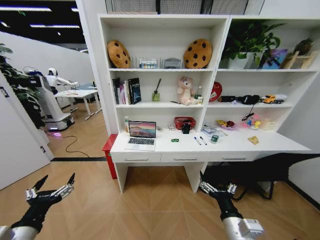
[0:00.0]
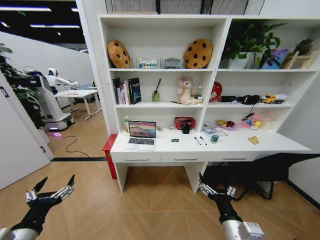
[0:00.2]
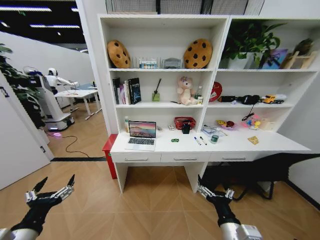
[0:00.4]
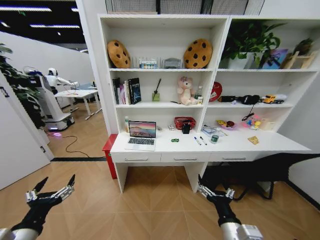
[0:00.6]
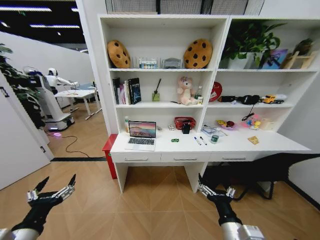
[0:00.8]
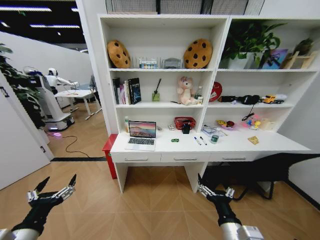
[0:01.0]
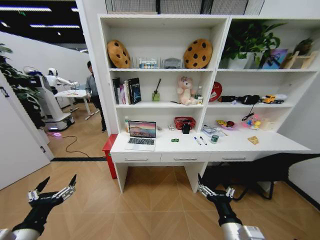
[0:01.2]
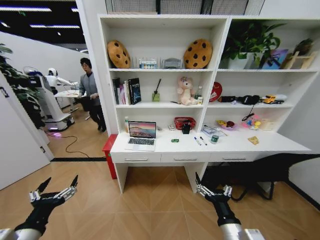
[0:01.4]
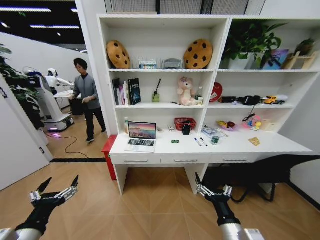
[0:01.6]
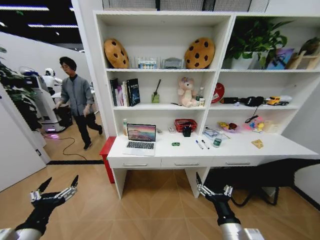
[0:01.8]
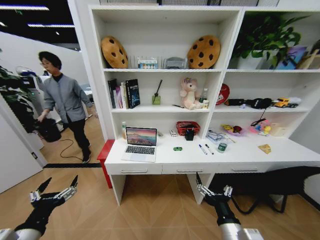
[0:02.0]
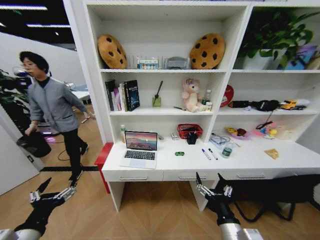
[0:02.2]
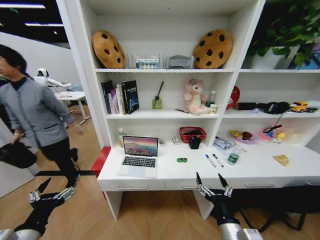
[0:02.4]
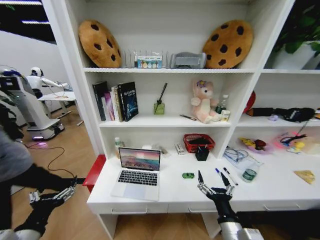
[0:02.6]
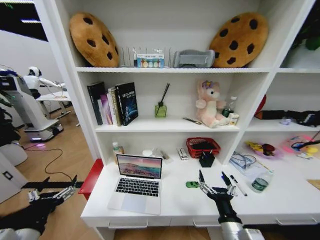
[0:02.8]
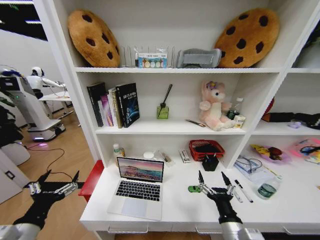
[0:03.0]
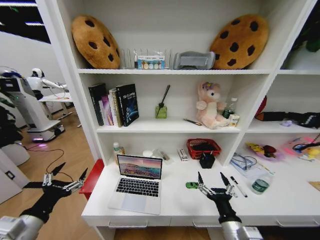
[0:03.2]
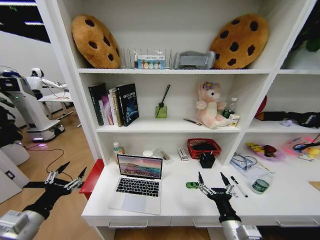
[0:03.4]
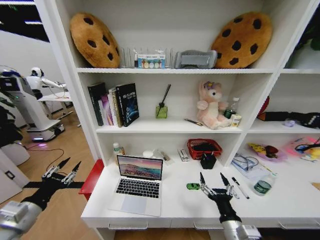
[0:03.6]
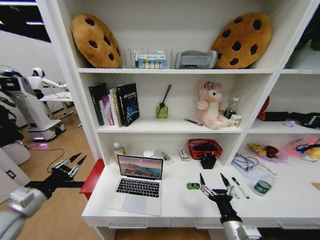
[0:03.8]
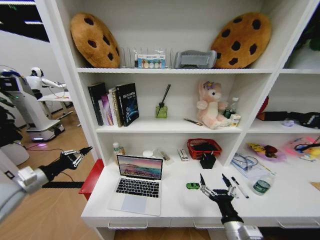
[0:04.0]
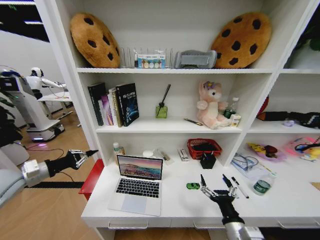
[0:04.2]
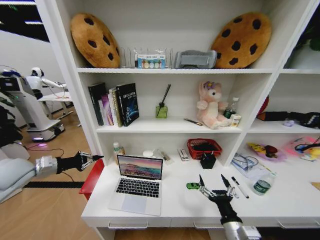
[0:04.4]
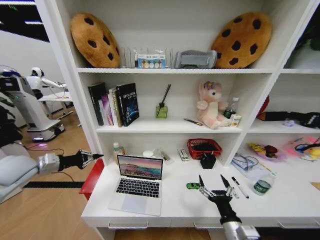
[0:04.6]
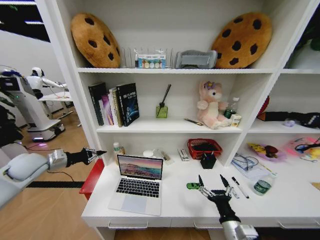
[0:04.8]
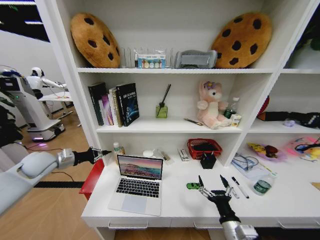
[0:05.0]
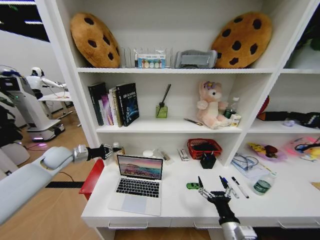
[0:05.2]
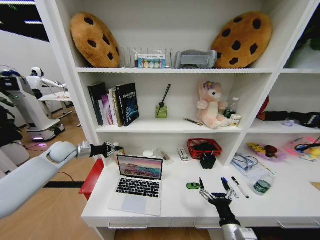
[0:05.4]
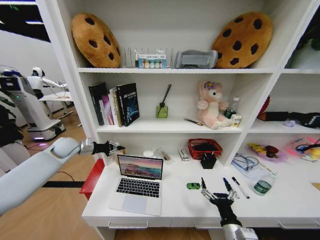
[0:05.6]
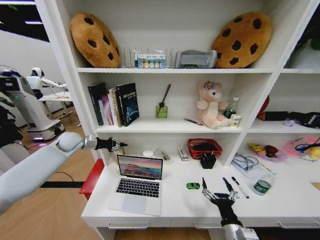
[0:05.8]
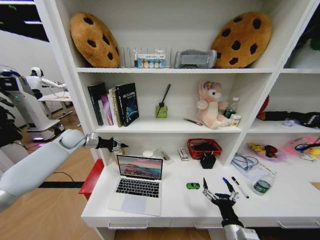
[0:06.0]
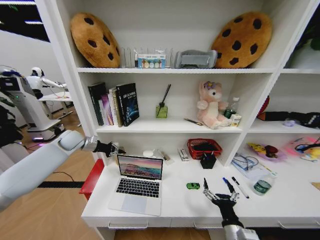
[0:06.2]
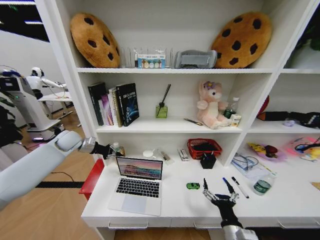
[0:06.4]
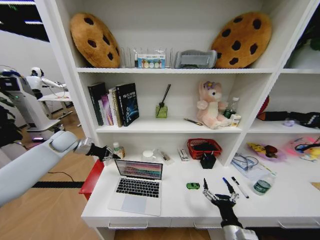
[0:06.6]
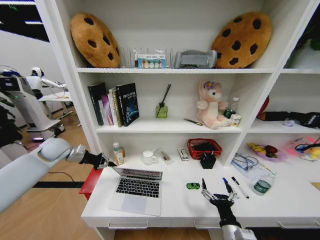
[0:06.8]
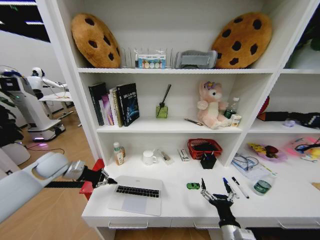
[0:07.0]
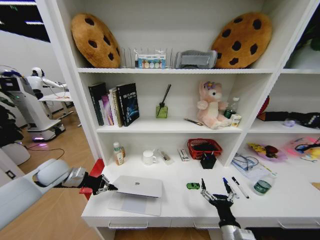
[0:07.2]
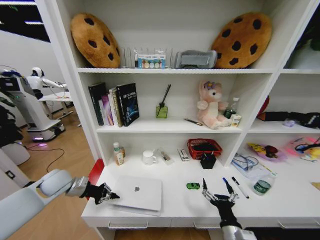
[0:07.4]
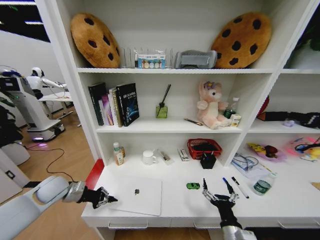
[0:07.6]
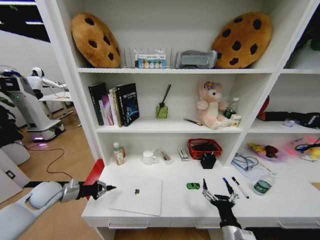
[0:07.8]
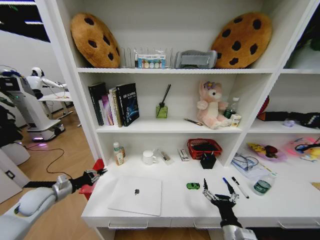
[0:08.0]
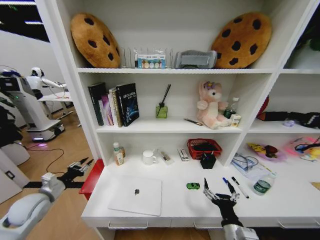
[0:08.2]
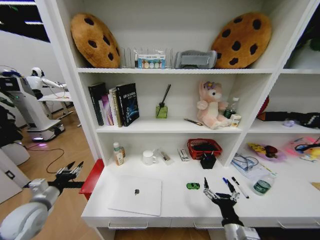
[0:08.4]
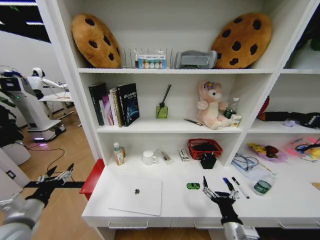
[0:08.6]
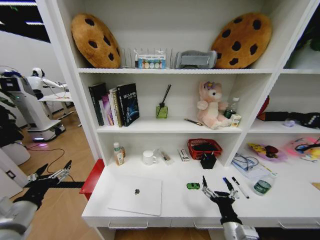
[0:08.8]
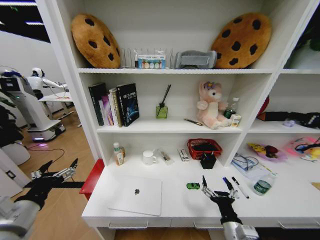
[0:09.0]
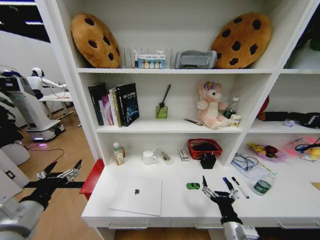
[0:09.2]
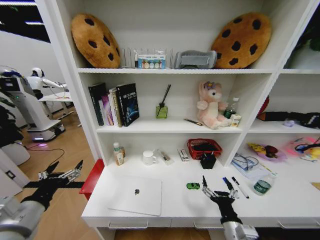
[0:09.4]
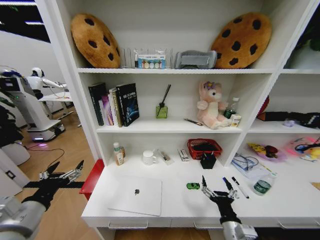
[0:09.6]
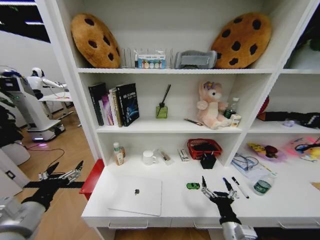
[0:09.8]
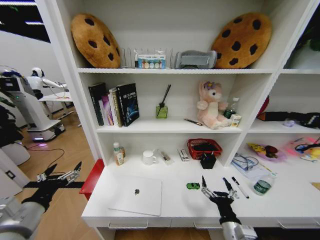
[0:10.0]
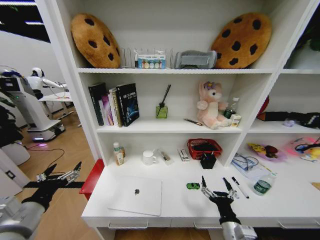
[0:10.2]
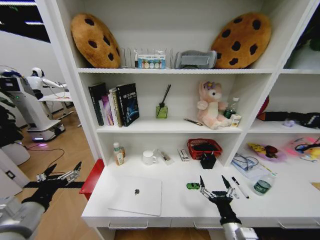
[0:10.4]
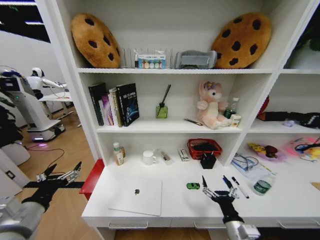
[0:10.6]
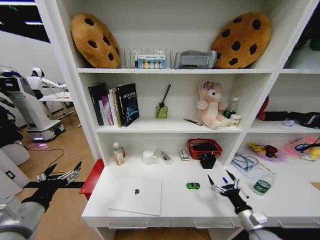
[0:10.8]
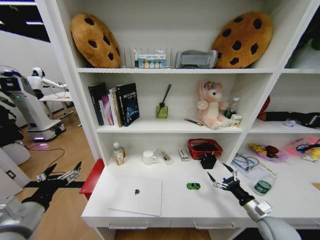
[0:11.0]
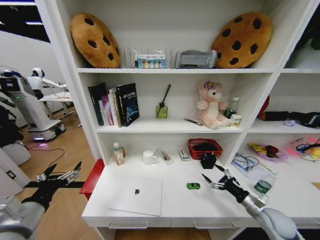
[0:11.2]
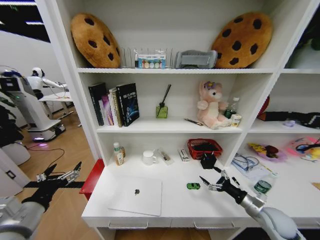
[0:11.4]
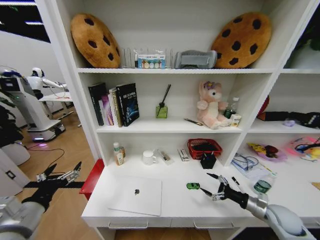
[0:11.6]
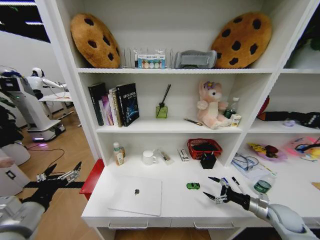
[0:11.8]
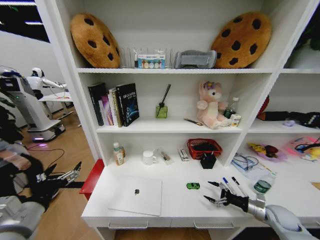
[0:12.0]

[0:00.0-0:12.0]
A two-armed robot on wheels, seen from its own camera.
Task of the whole recording: Organize the objects on the table.
0:03.0 to 0:04.4: The left gripper travels forward and to the left by about 25 cm, and closes.
0:04.4 to 0:06.0: The left gripper is displaced forward by approximately 20 cm.
0:06.0 to 0:07.6: The left gripper is displaced backward and downward by roughly 20 cm.
0:07.6 to 0:09.0: The left gripper heads backward and upward, covering some 20 cm, and opens its fingers.
0:09.0 to 0:10.4: There are only small adjustments of the grippers.
0:10.4 to 0:12.0: The right gripper is displaced to the right and forward by about 30 cm.

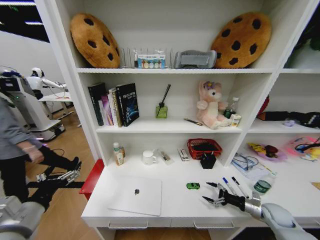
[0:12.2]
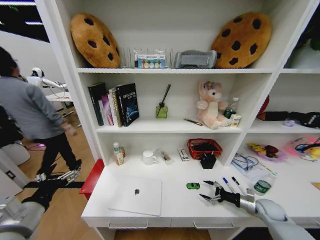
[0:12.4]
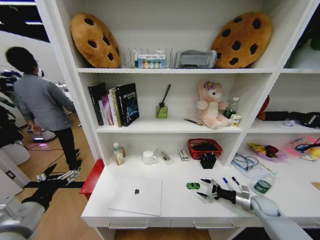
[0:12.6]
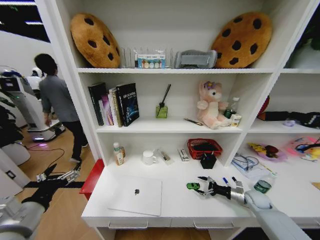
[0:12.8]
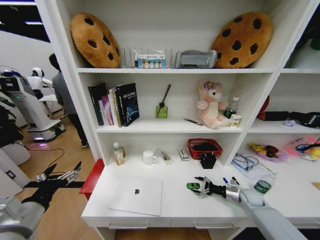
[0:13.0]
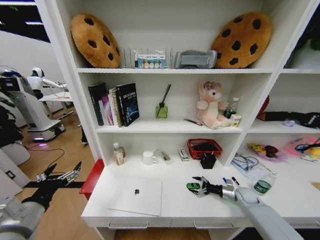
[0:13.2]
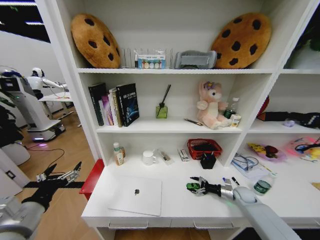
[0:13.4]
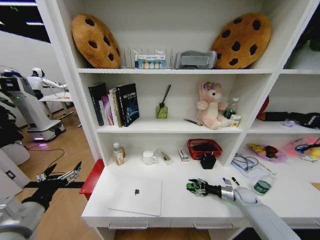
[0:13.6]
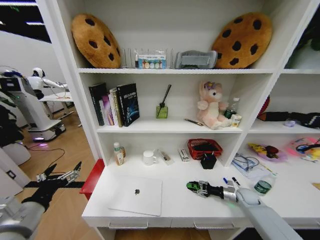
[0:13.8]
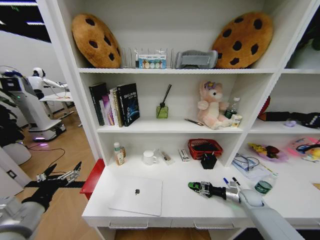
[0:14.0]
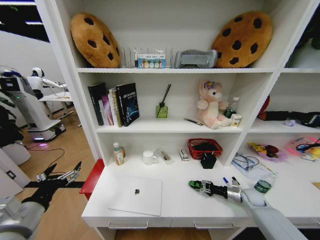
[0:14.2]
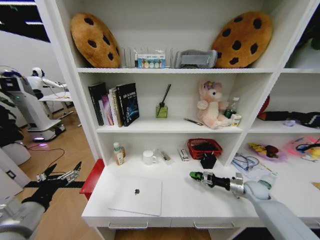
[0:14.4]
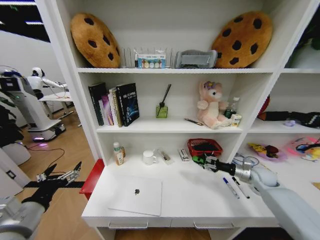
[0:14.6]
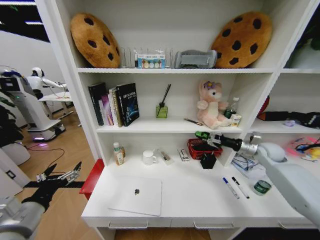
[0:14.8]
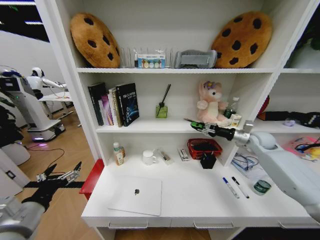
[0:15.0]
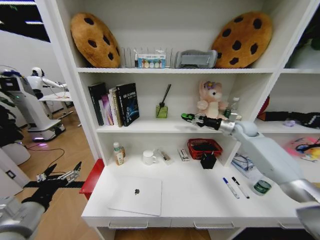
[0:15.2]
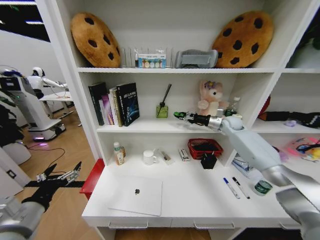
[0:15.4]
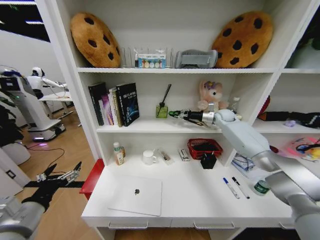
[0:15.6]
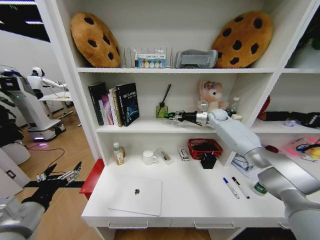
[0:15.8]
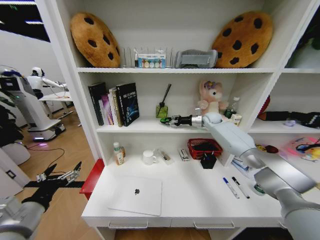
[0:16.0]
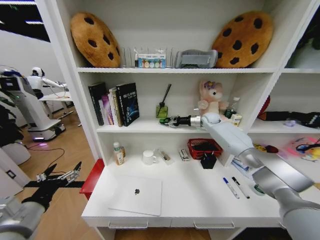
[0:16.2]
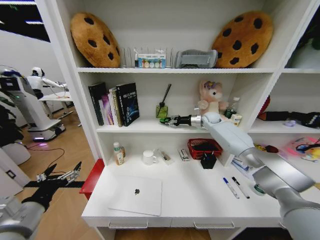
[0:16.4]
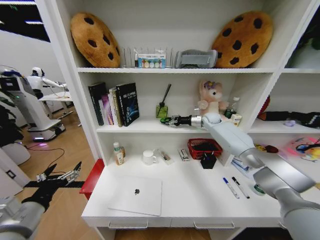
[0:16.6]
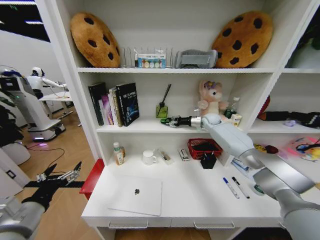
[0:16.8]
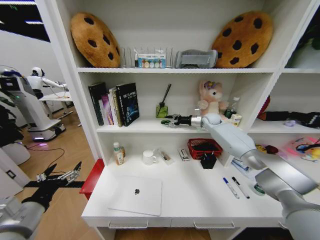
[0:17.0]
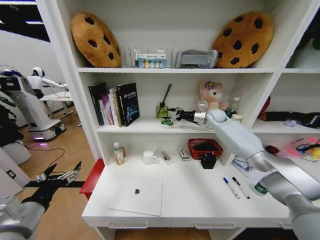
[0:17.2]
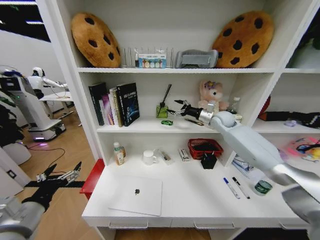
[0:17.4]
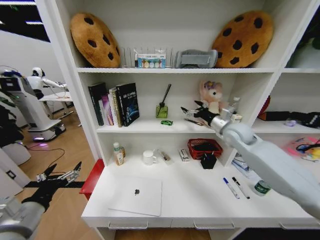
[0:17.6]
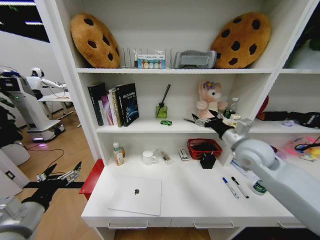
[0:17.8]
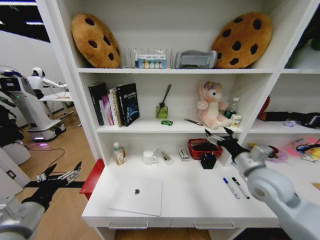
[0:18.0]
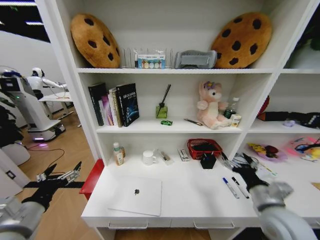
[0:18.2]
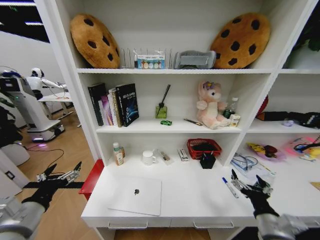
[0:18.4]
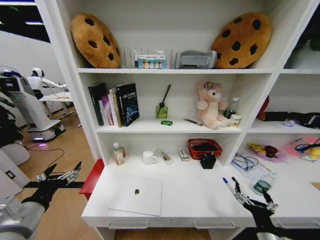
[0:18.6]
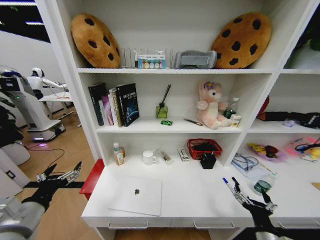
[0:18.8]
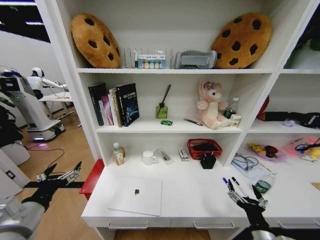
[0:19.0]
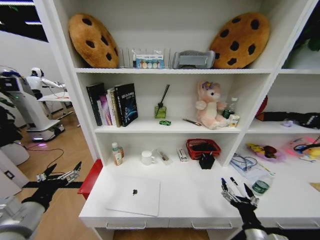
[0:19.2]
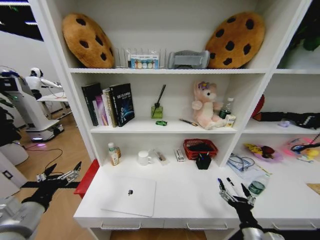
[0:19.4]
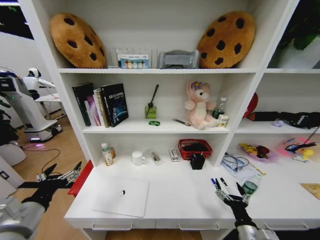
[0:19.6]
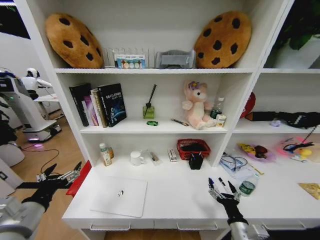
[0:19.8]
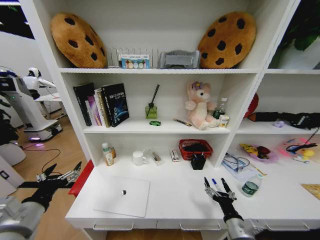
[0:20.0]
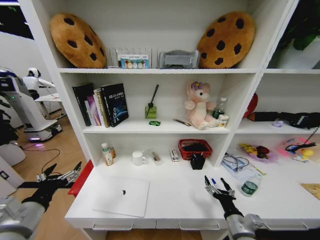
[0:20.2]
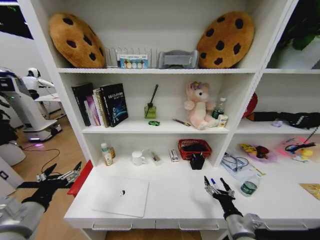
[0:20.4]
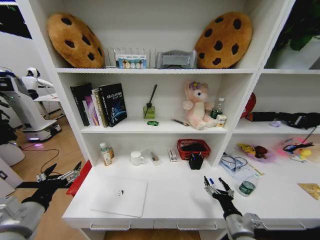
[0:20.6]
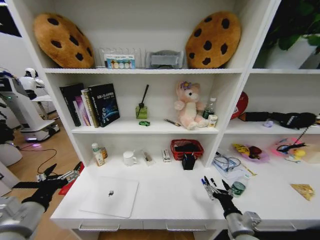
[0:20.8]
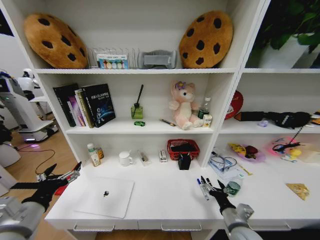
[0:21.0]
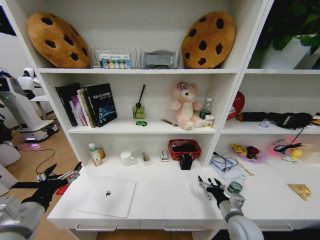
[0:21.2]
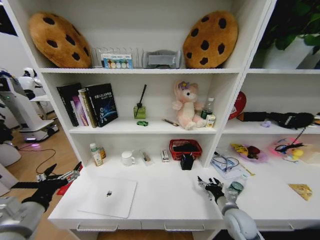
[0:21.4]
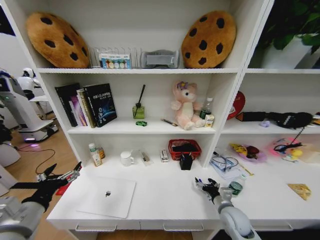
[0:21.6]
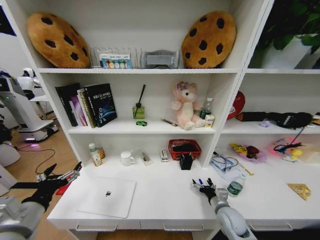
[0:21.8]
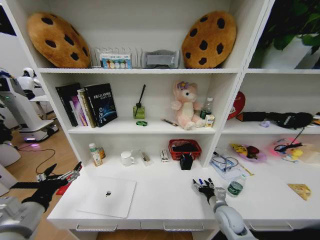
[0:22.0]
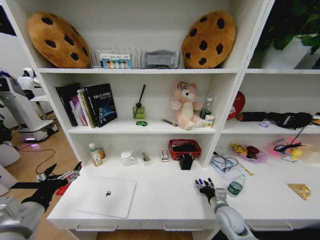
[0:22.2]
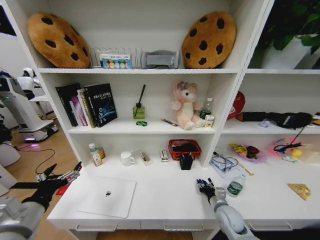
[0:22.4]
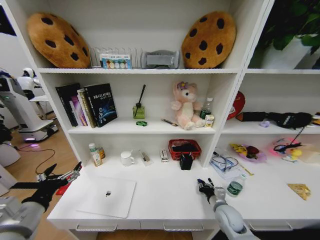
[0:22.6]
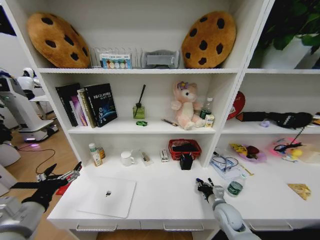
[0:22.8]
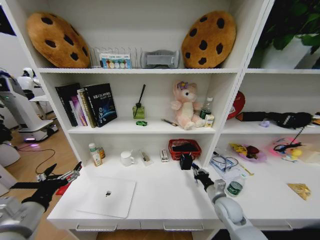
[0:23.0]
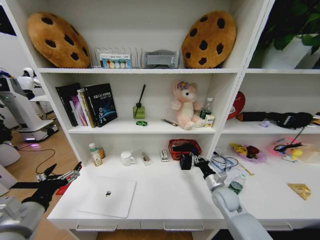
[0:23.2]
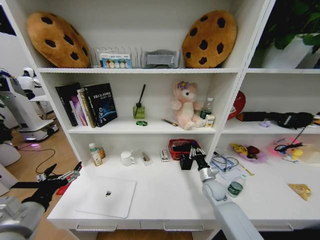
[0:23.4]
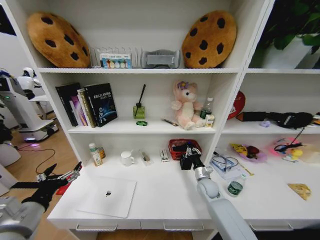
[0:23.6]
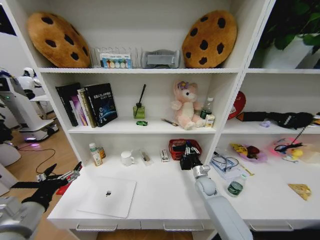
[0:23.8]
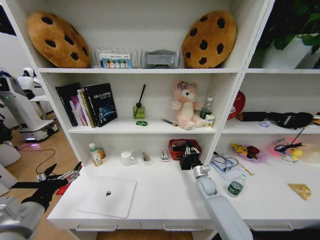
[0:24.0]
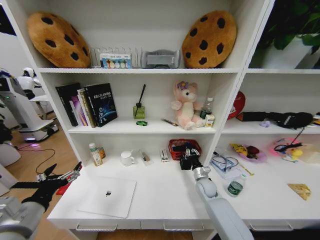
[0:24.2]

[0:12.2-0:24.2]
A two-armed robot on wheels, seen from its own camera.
Task of the whole recording: Organize the objects on the table.
0:12.2 to 0:13.8: The right gripper goes some 10 cm forward, and closes.
0:13.8 to 0:15.2: The right gripper moves upward and forward, approximately 35 cm.
0:15.2 to 0:16.6: The right gripper is displaced forward and to the left by about 15 cm.
0:16.6 to 0:18.2: The right gripper is displaced backward by approximately 40 cm, and opens.
0:18.2 to 0:19.8: The right gripper heads downward and backward, covering about 15 cm.
0:19.8 to 0:21.2: The right gripper shifts approximately 10 cm forward.
0:21.2 to 0:22.6: The right gripper heads forward and downward, covering approximately 10 cm, and closes its fingers.
0:22.6 to 0:24.2: The right gripper moves forward, approximately 15 cm.
